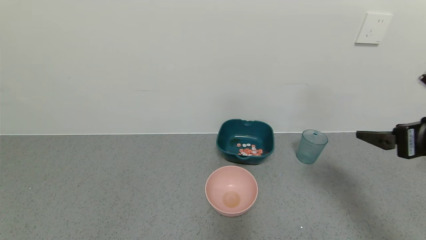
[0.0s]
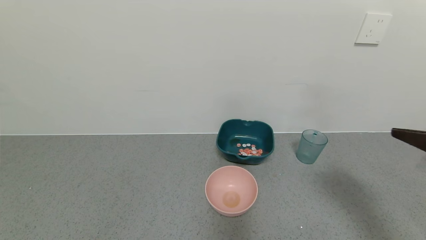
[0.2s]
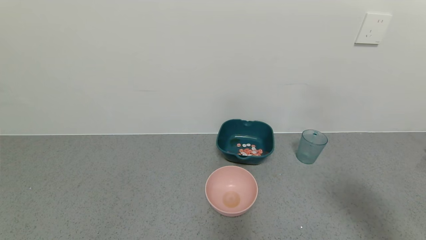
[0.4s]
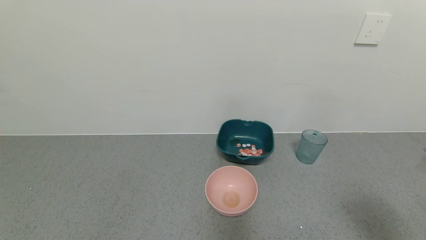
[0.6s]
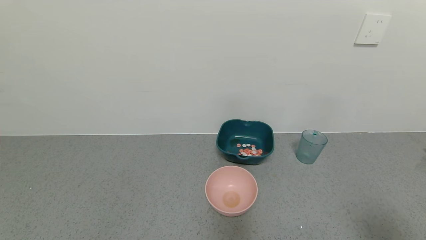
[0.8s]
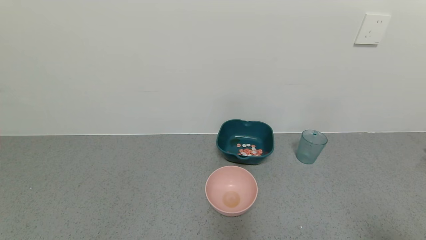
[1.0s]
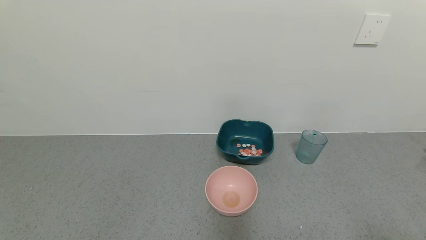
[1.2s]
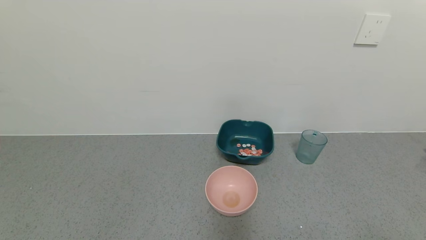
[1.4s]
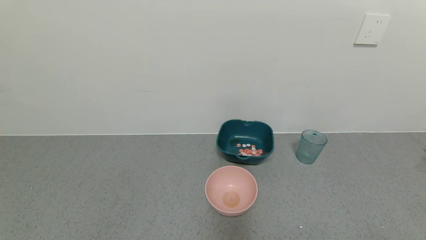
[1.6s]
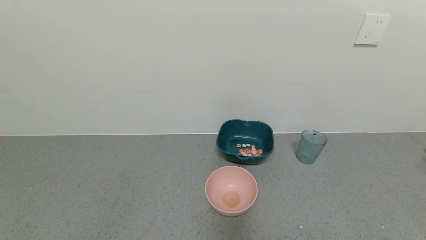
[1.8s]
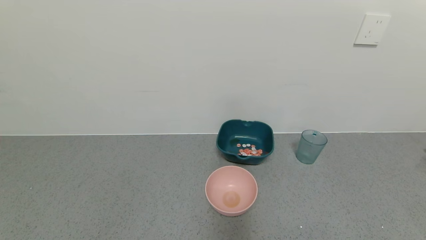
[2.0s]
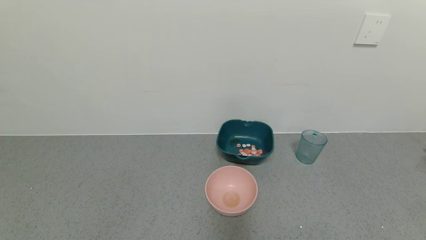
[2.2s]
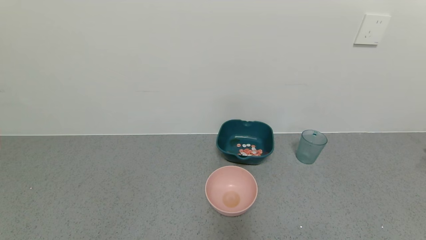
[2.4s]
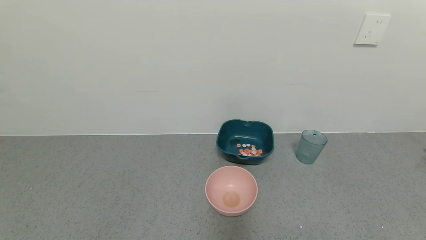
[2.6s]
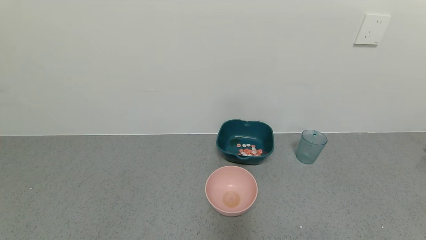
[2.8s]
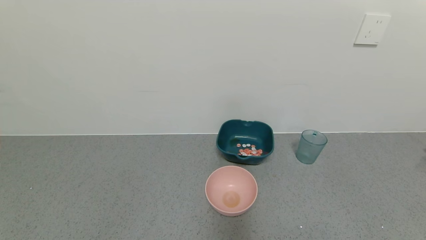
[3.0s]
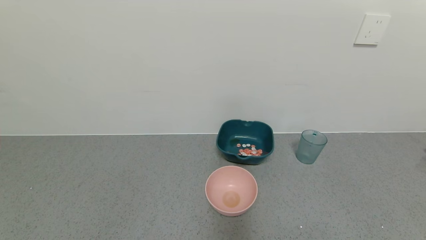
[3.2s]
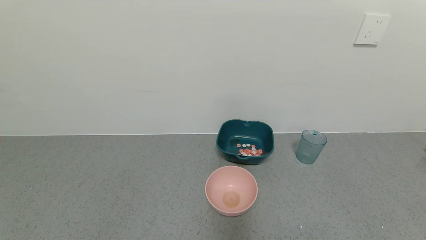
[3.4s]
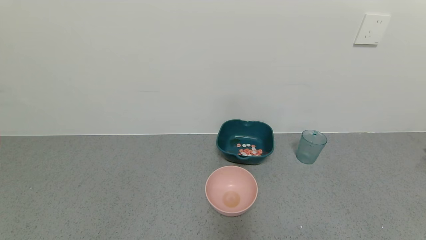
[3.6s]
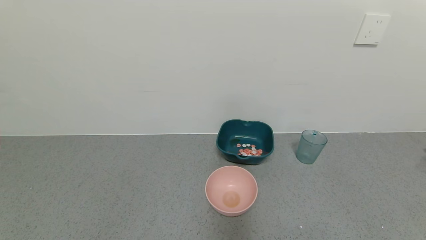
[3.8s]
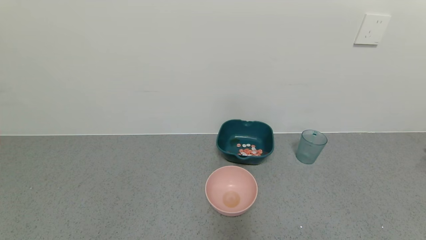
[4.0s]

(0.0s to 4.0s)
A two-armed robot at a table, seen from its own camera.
Task of the whole recording: use a gripper to pick up the cup and pour the solid into a bowl or tray.
0.0s - 1.4s: The right gripper is displaced backward by some 25 cm.
